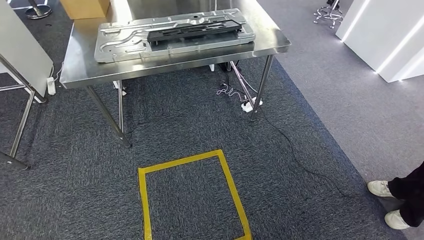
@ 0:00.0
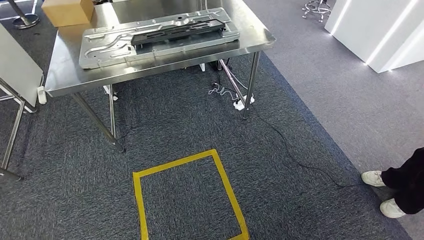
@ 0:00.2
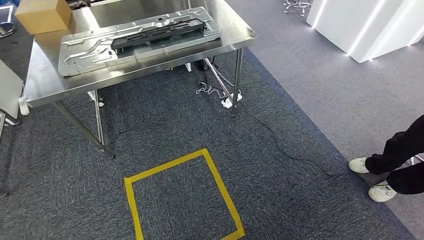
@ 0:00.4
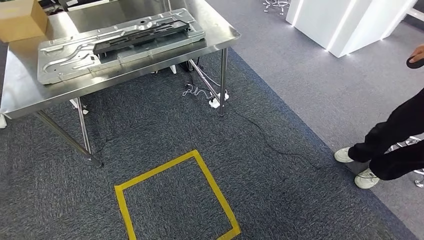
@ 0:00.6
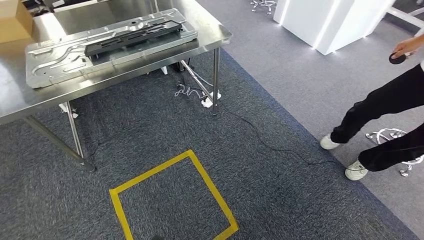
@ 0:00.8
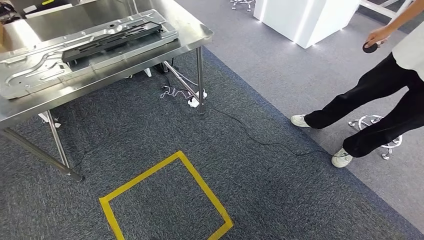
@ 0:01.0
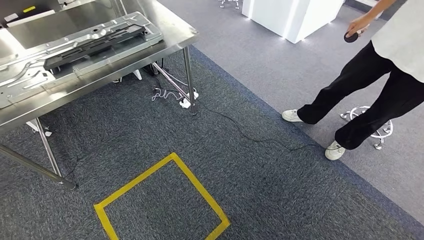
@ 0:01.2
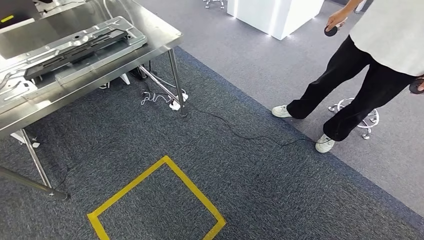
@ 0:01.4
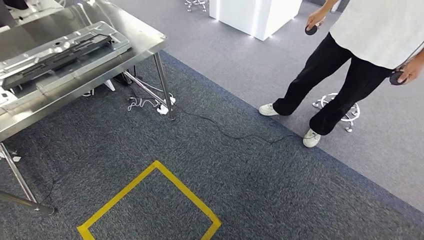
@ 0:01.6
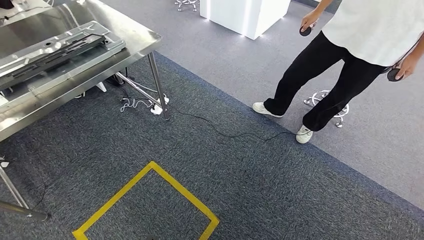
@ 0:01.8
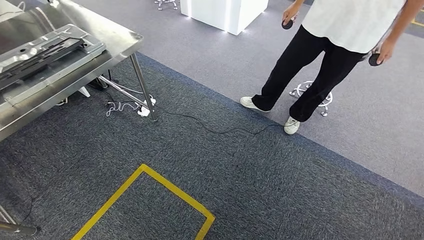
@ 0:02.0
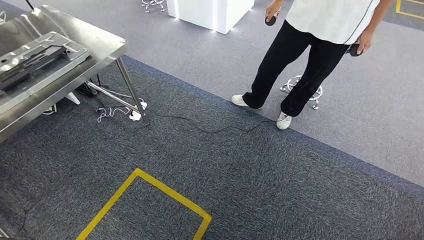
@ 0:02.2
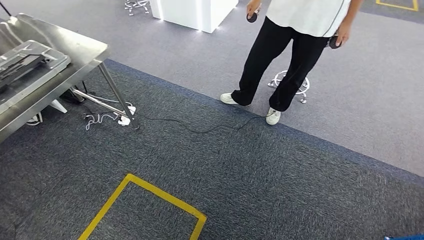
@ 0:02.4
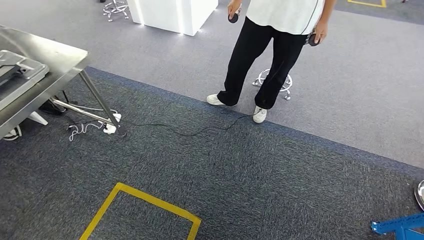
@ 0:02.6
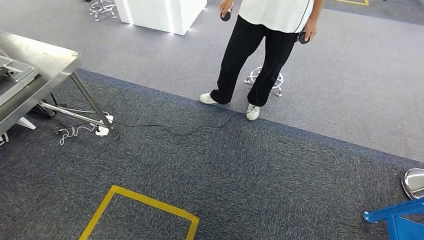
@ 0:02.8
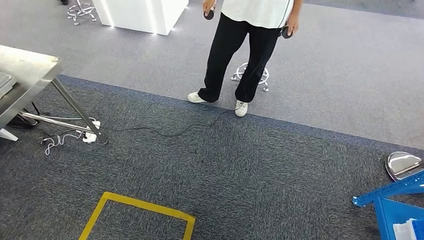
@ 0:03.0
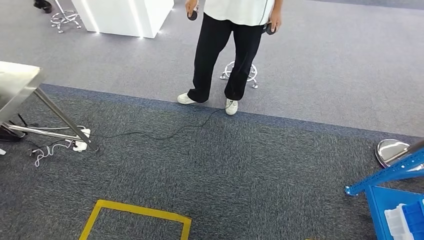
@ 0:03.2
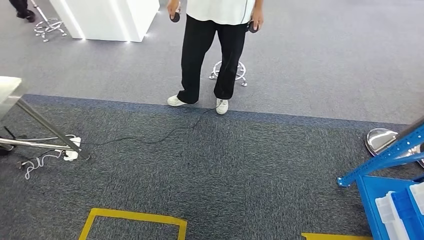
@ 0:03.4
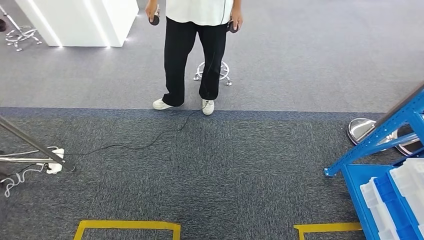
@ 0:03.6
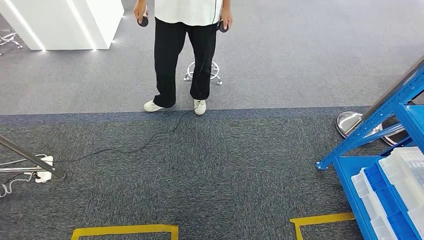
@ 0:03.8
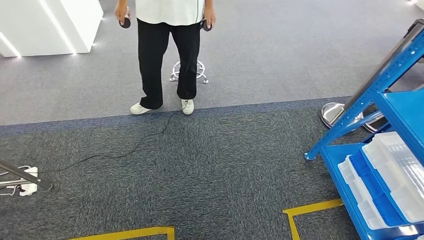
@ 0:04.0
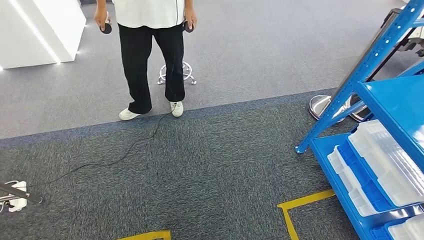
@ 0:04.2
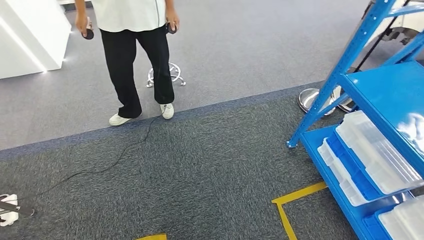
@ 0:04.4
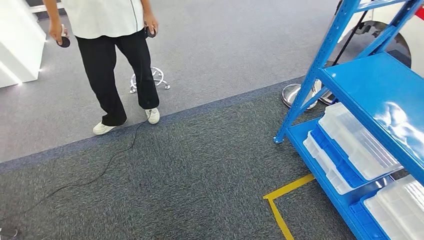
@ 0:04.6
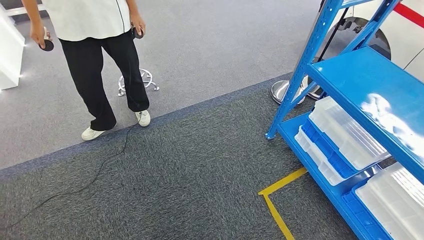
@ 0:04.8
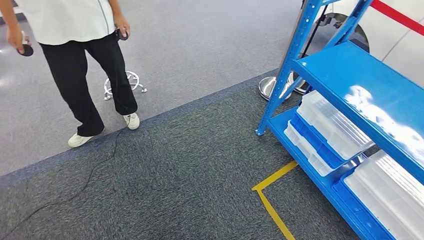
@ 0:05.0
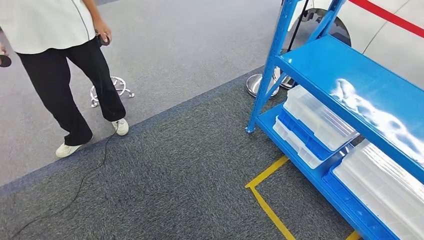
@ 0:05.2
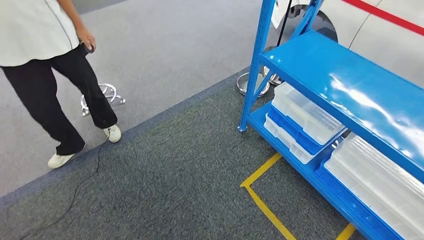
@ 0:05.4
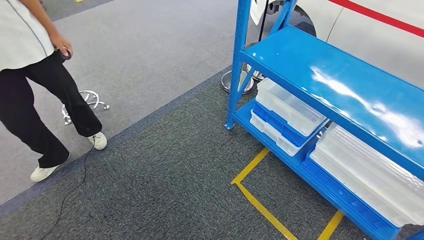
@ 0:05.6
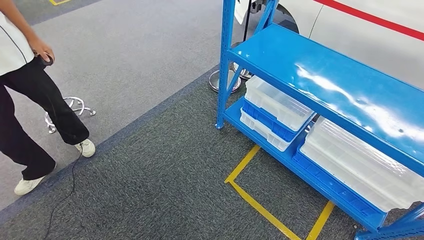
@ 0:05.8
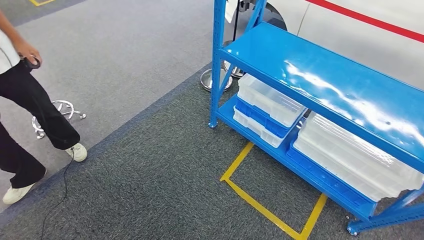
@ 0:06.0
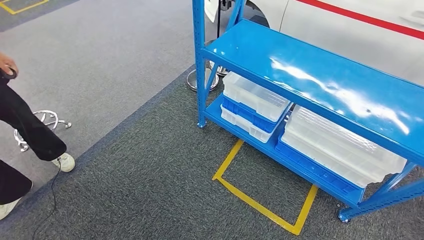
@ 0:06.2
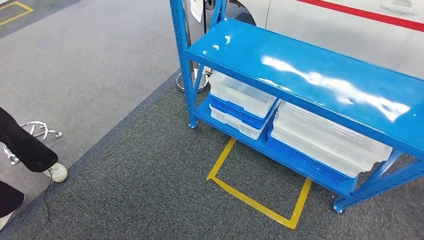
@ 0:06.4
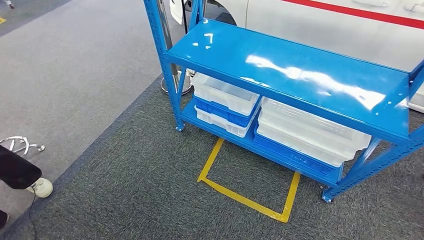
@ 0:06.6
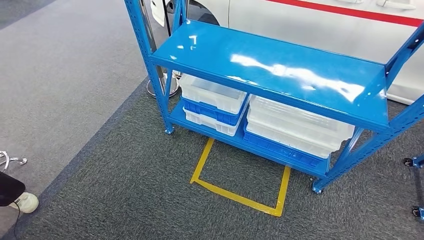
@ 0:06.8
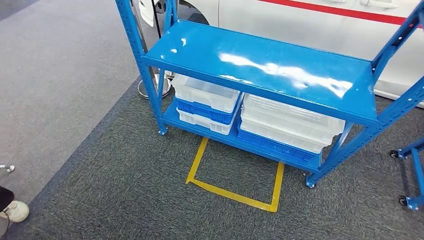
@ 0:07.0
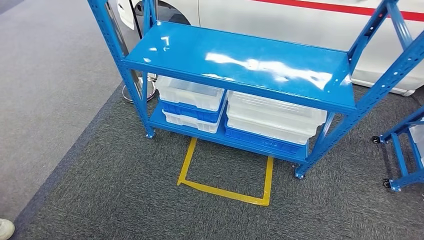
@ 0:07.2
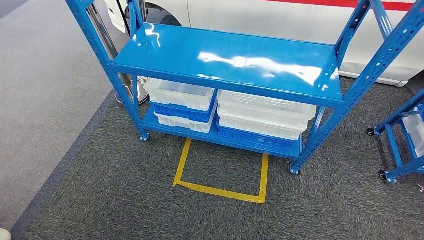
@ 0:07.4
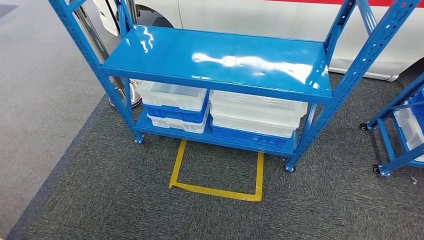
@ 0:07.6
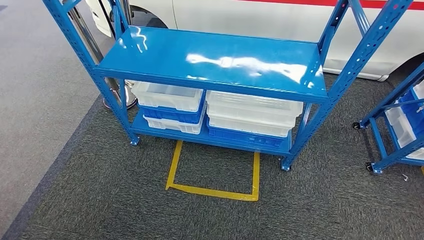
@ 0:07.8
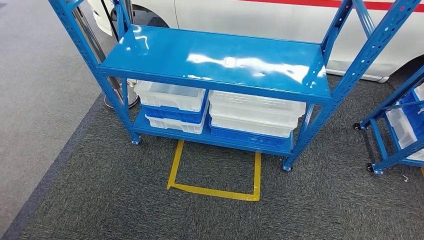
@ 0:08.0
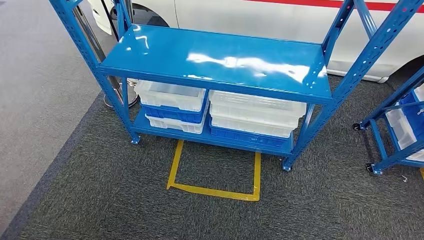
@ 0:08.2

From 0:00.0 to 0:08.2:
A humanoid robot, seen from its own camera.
Step, from 0:00.0 to 0:08.0: Move to the initial position of the shelf.

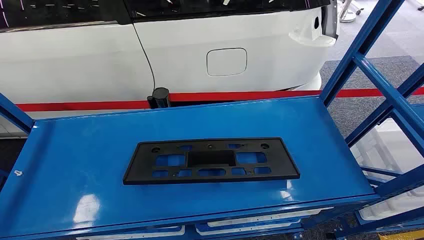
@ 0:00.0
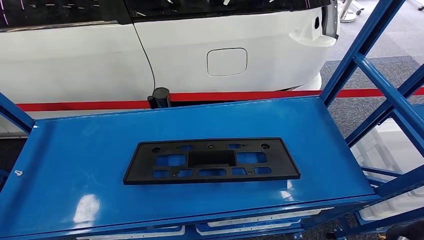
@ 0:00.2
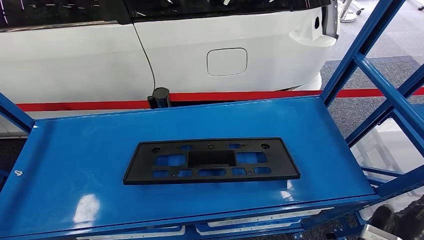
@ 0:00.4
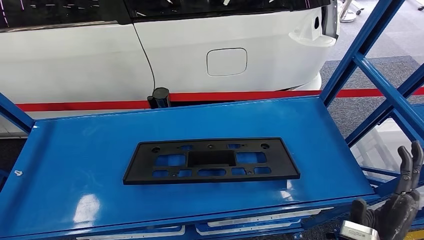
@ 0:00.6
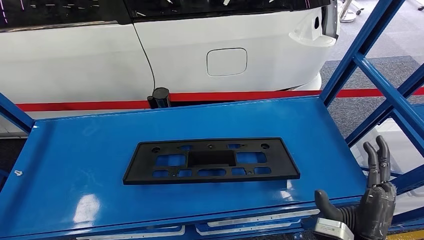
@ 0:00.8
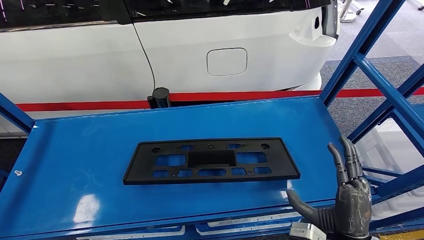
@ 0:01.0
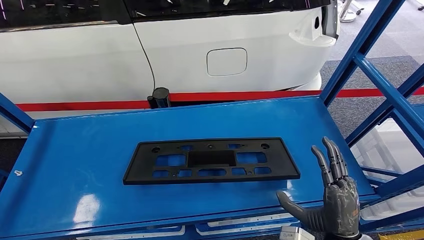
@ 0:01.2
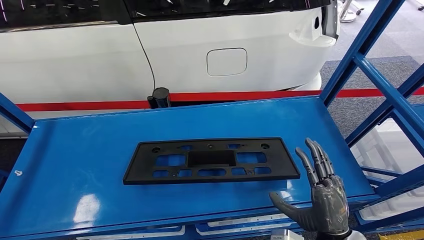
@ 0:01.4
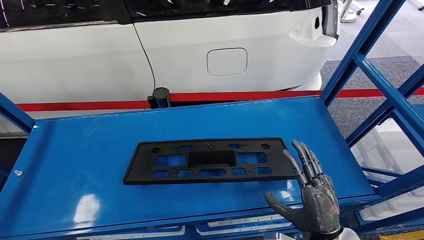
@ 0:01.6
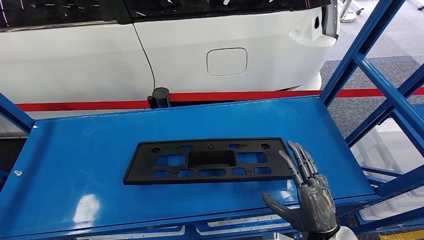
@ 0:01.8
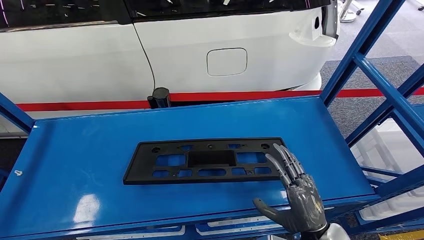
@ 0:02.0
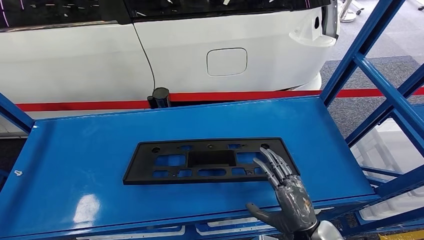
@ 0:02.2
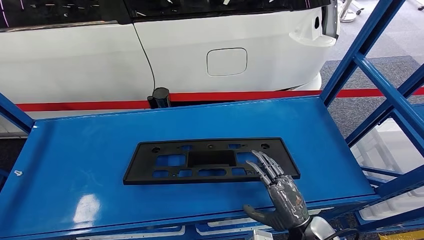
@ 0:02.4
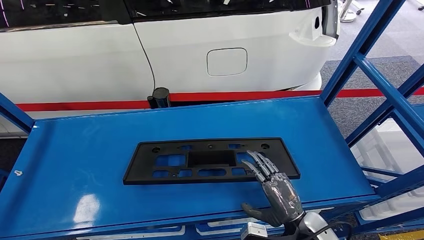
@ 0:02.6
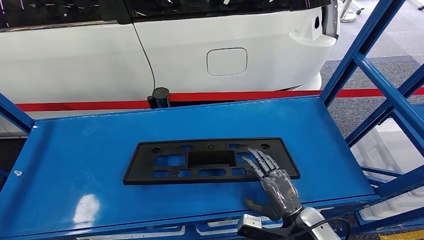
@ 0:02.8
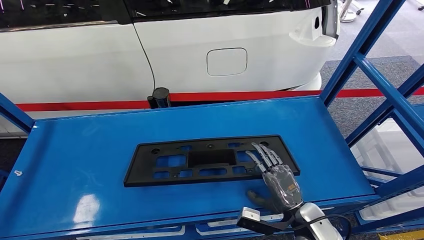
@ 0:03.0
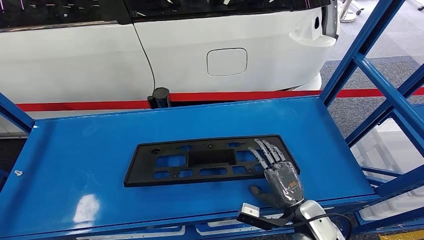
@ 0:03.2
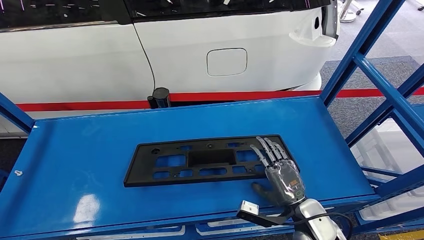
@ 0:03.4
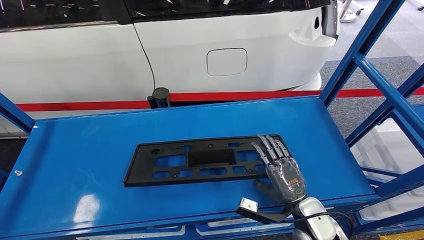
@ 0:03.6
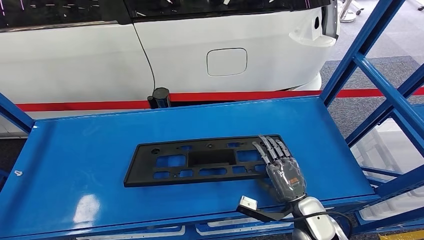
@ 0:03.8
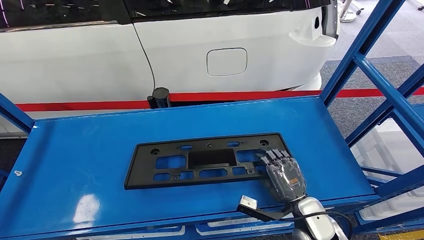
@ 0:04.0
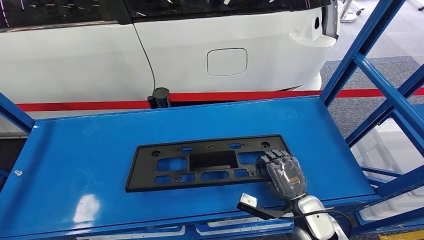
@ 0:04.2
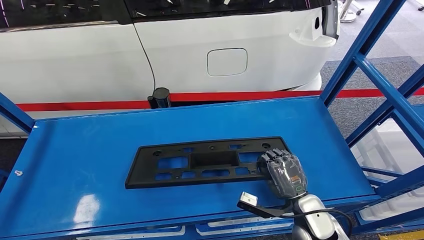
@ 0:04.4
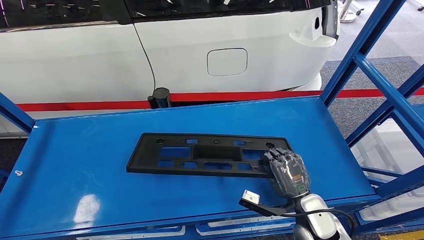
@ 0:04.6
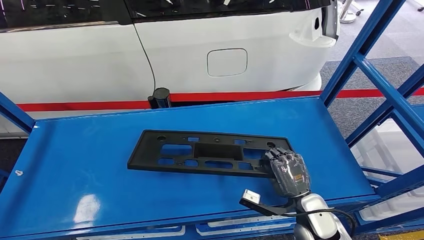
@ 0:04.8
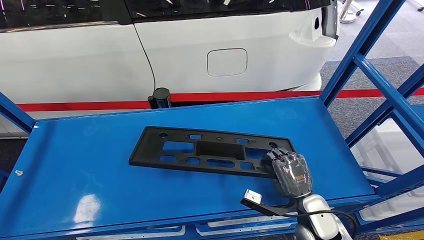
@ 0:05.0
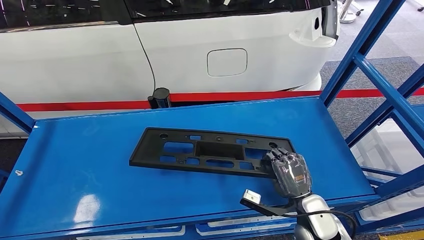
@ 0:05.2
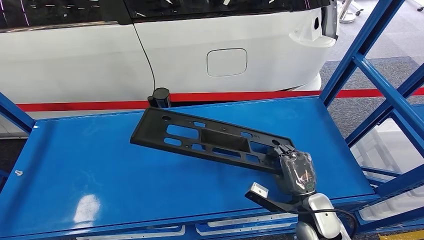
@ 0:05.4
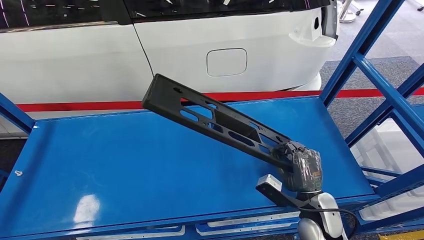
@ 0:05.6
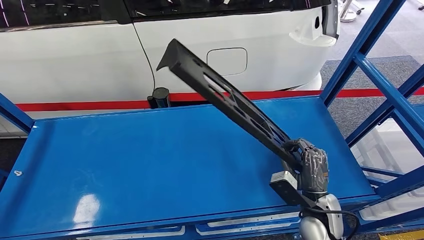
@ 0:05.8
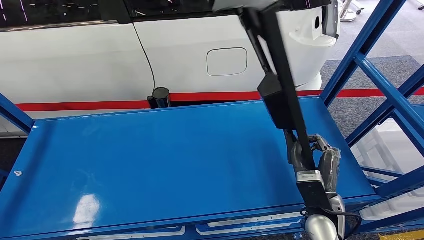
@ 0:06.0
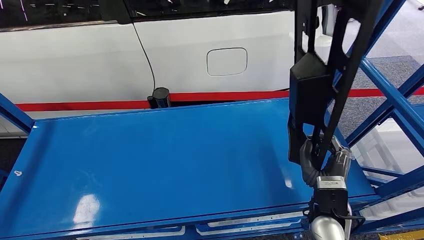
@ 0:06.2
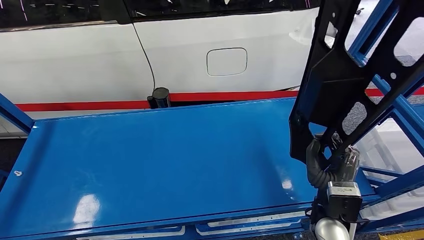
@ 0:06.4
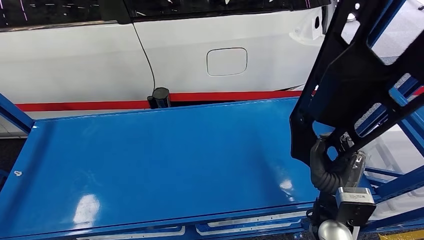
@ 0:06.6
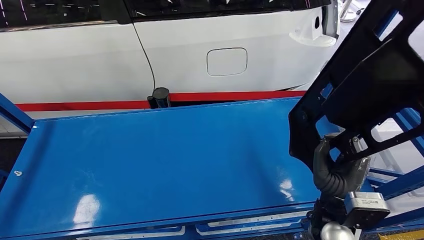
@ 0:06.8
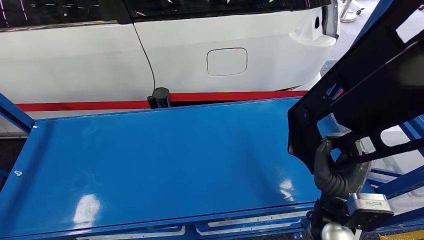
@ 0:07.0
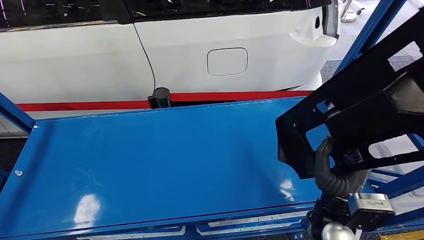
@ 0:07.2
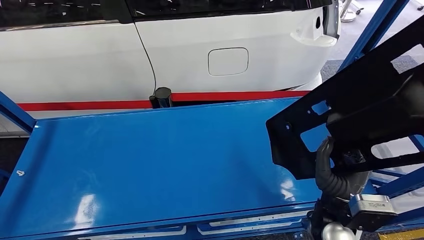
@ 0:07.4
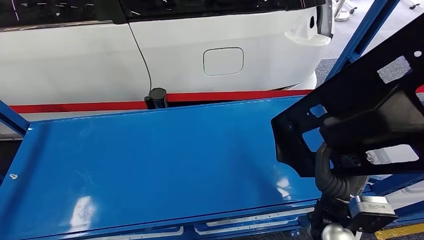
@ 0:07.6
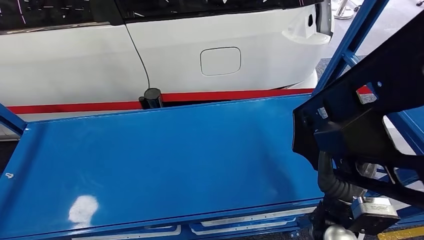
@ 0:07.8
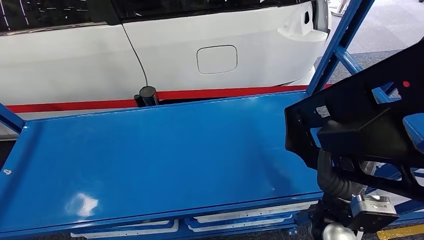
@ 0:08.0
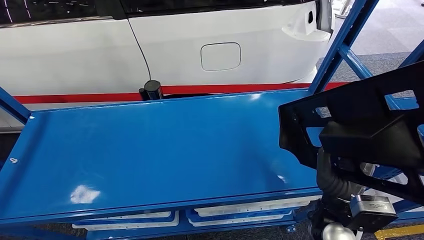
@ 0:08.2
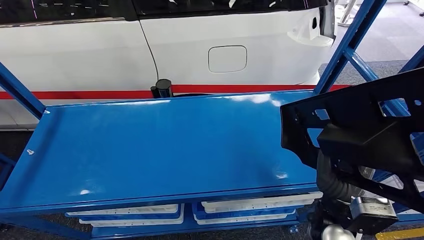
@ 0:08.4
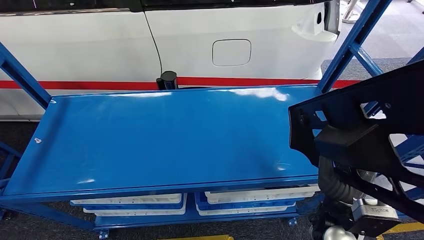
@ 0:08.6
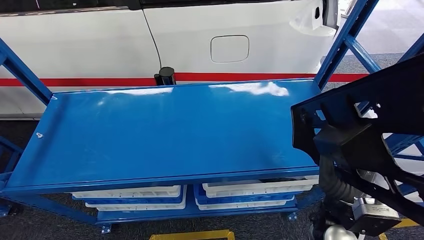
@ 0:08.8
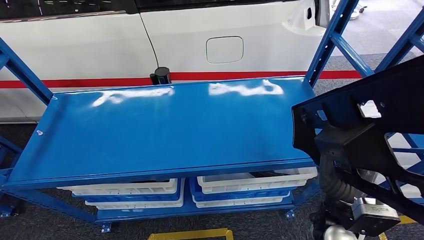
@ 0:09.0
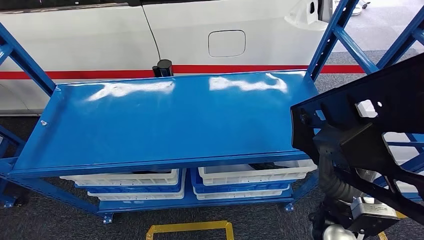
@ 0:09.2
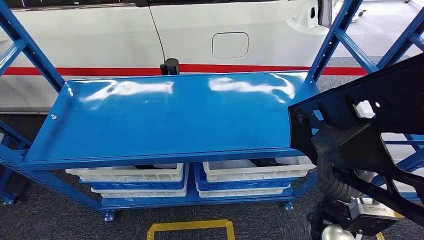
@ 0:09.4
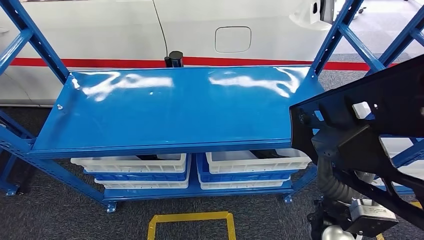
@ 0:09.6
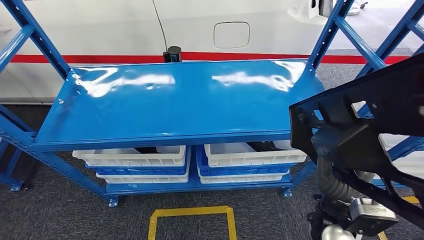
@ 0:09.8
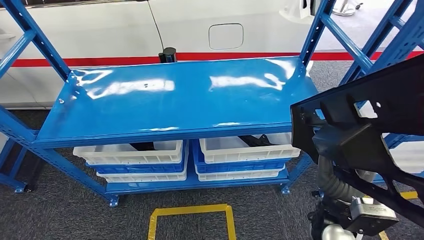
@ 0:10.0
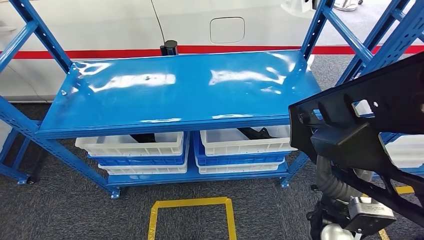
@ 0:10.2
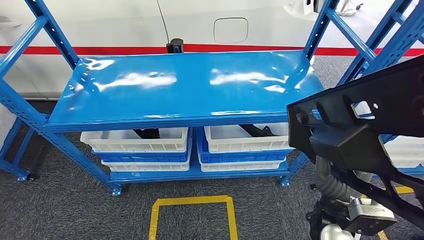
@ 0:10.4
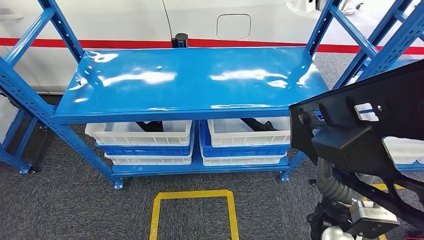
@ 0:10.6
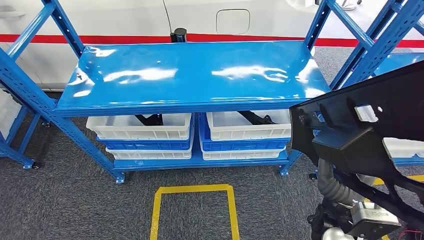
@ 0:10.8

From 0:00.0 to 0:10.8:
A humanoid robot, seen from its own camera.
Step, from 0:00.0 to 0:06.6: Pick up the large material from the shelf.
From 0:01.6 to 0:03.0: The right hand is displaced forward by approximately 5 cm.
From 0:03.0 to 0:04.6: The hands stay close to where they were, moving slightly.
